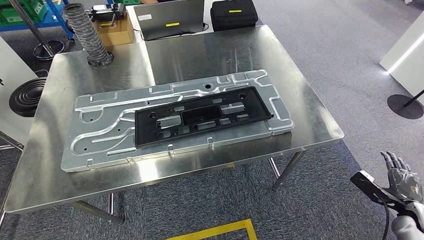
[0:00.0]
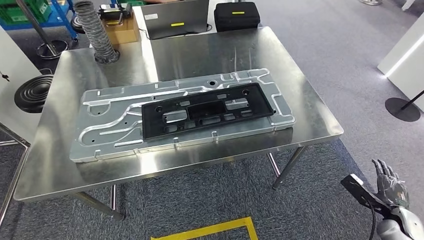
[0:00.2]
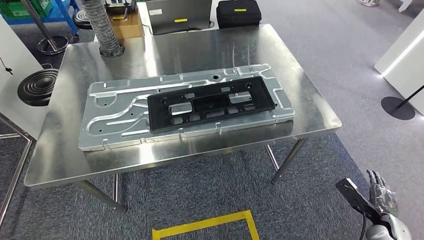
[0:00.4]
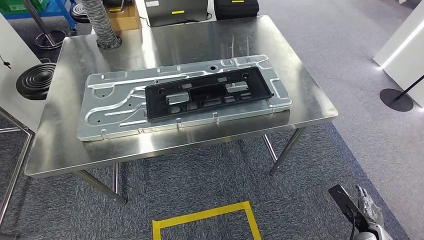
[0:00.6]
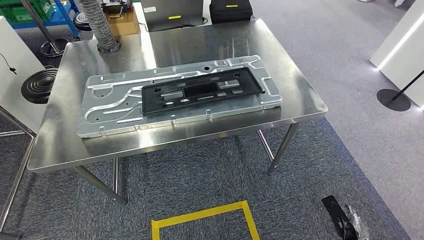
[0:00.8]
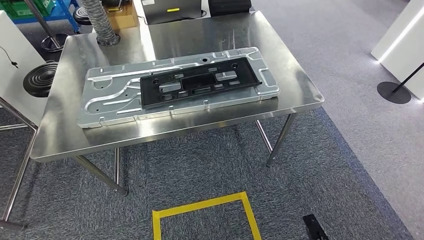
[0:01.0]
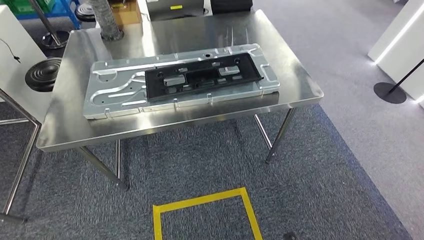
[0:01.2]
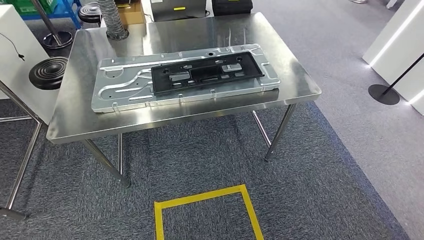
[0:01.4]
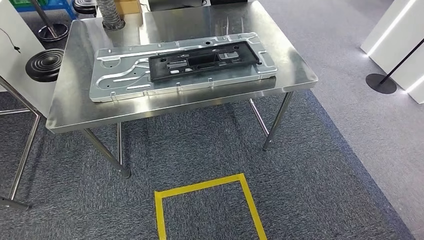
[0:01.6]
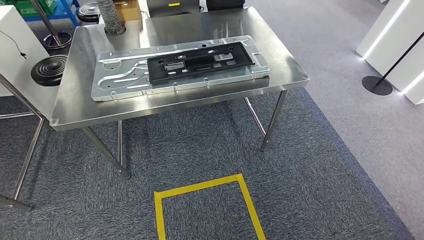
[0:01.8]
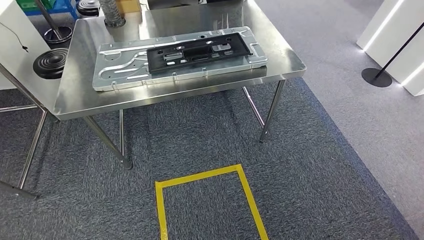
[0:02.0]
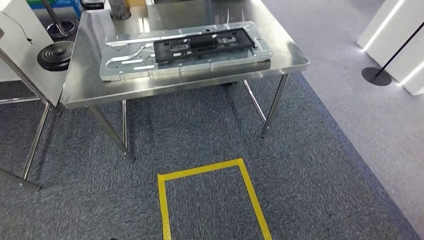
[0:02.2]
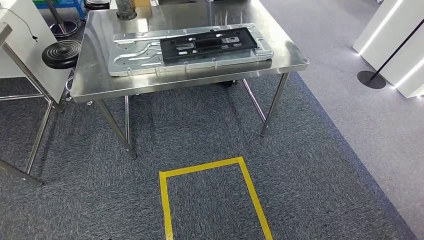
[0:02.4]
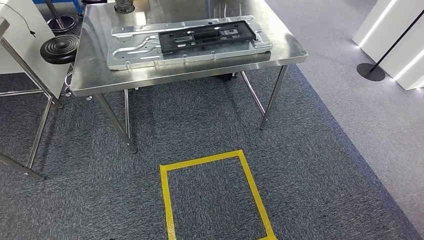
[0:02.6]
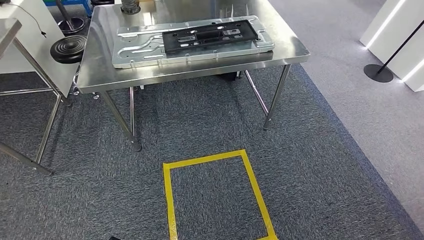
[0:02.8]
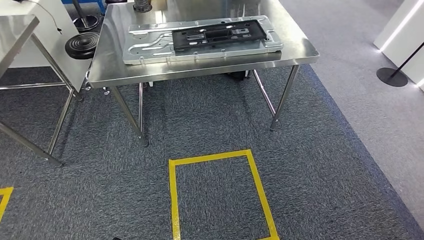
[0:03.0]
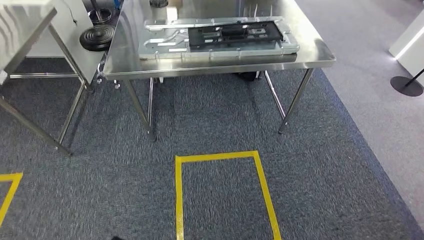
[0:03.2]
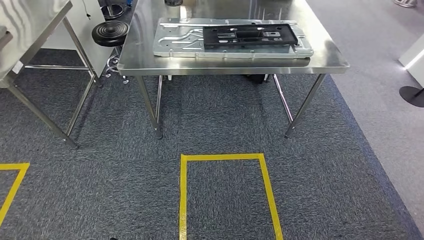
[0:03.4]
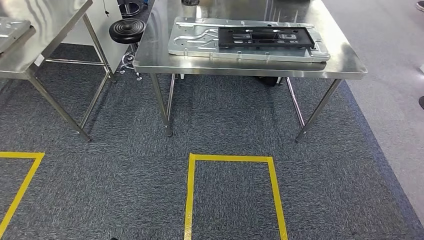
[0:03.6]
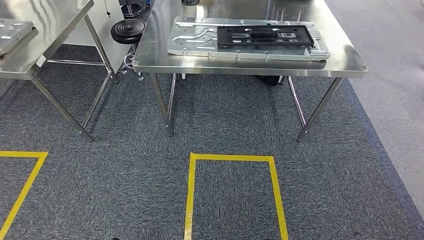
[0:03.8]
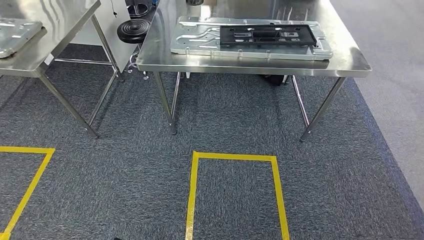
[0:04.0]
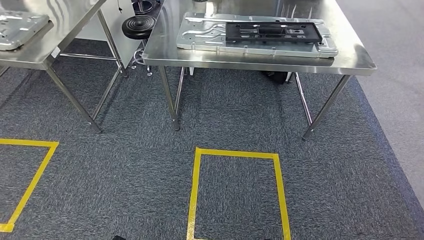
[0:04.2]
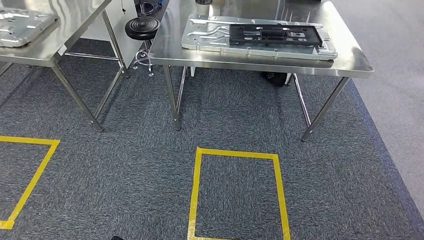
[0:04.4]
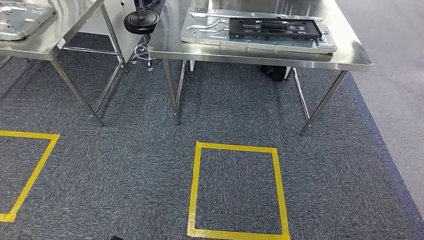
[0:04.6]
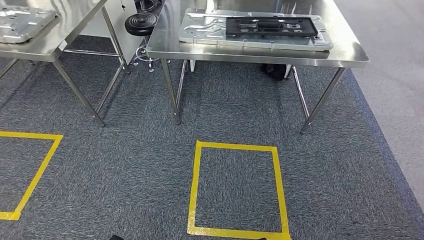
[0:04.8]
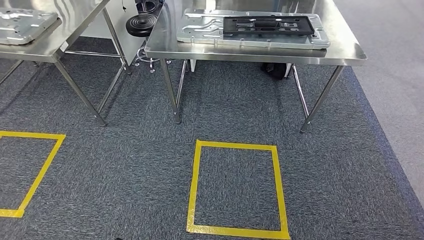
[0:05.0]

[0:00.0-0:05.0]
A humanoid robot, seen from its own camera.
Step, 0:00.0 to 0:05.0: Move to the initial position of the shelf.
